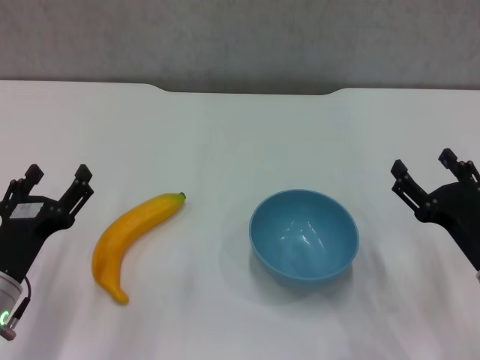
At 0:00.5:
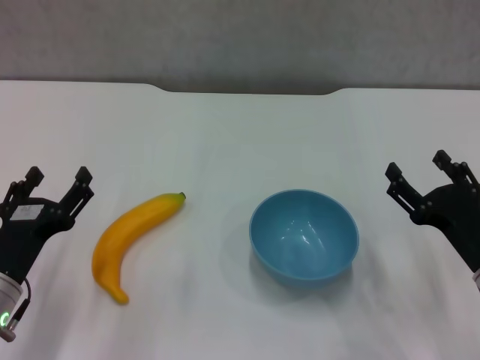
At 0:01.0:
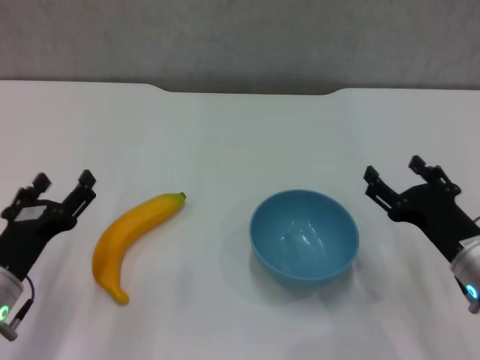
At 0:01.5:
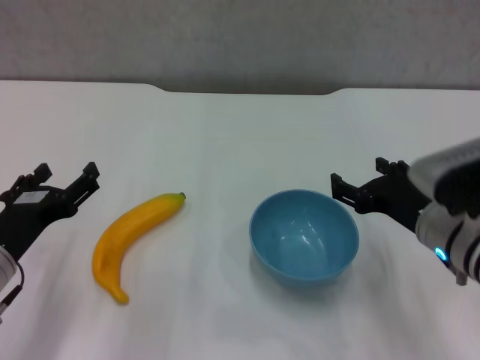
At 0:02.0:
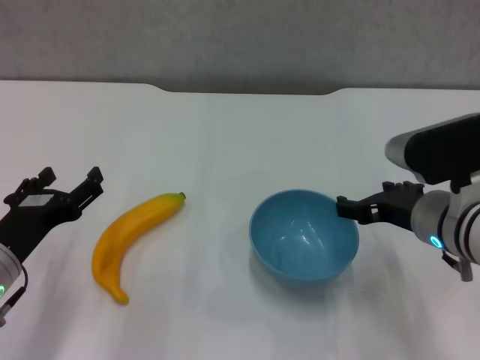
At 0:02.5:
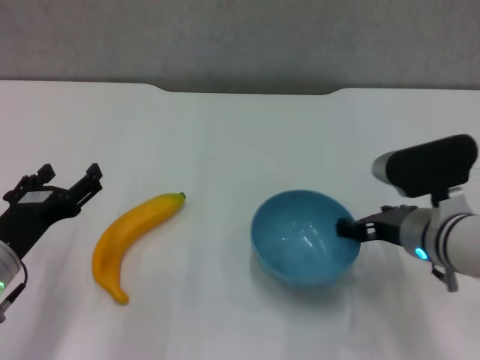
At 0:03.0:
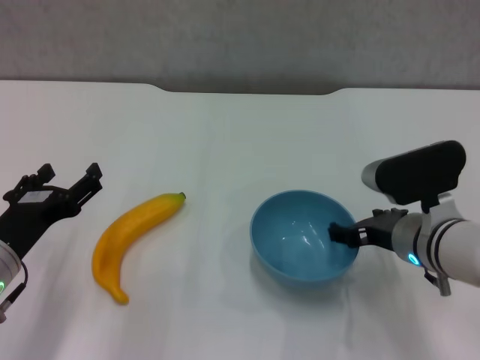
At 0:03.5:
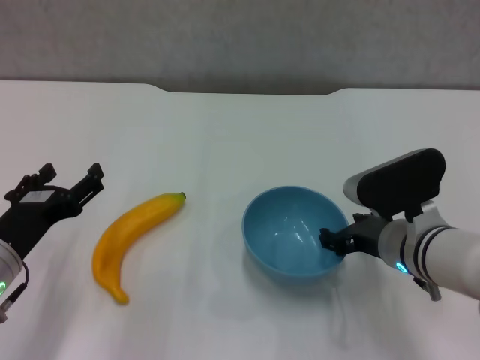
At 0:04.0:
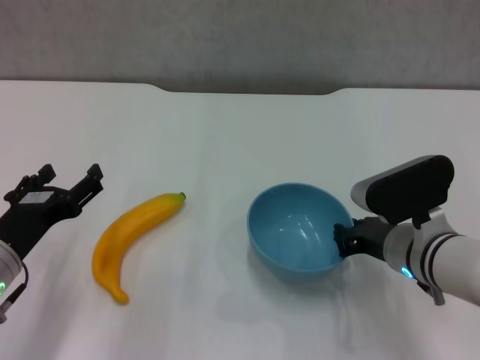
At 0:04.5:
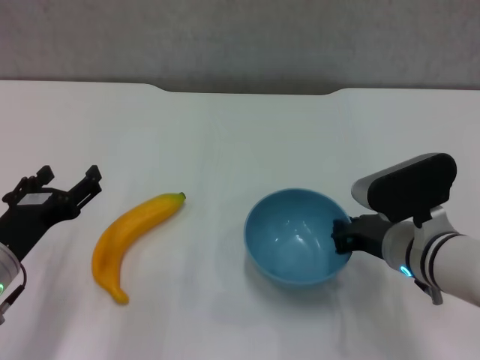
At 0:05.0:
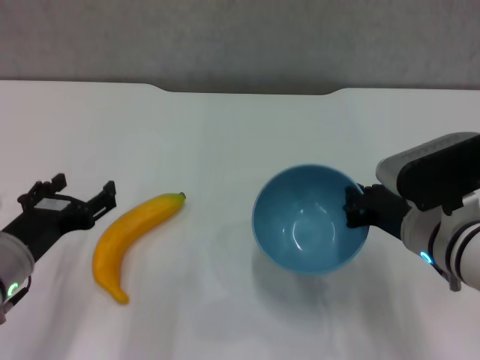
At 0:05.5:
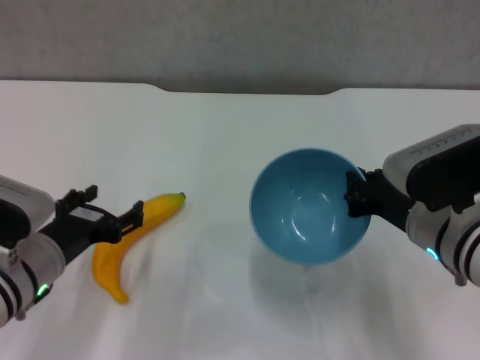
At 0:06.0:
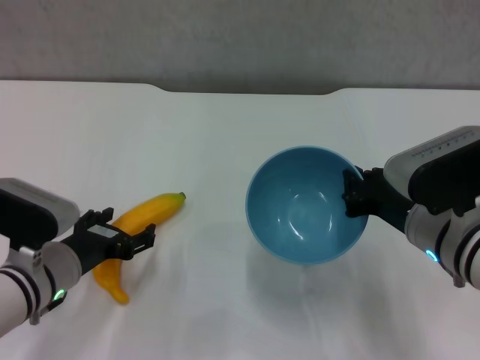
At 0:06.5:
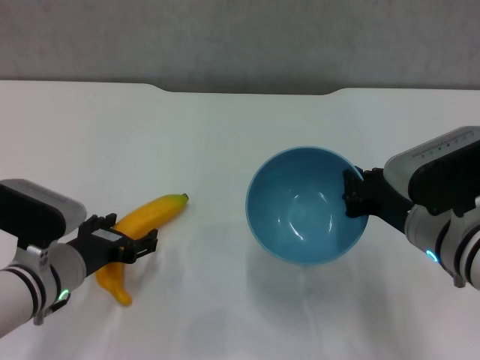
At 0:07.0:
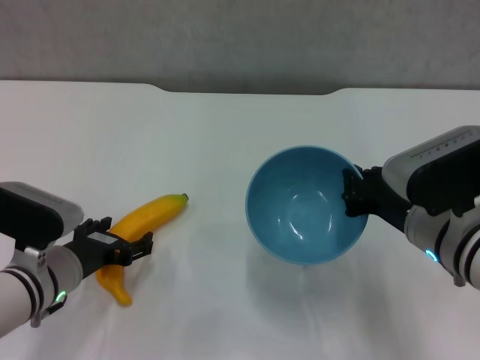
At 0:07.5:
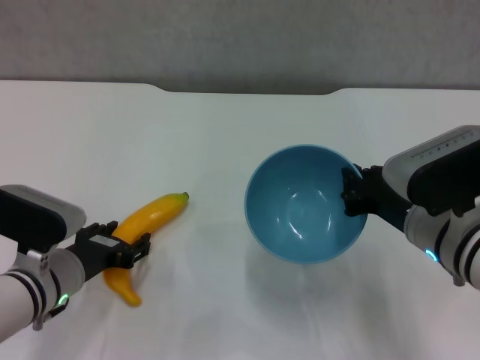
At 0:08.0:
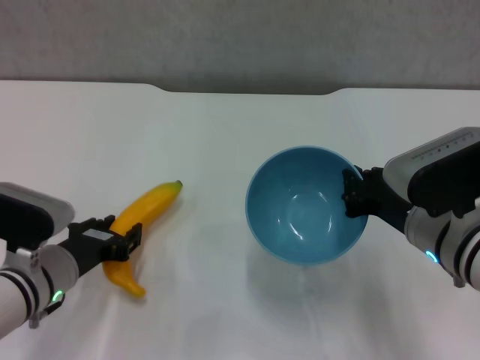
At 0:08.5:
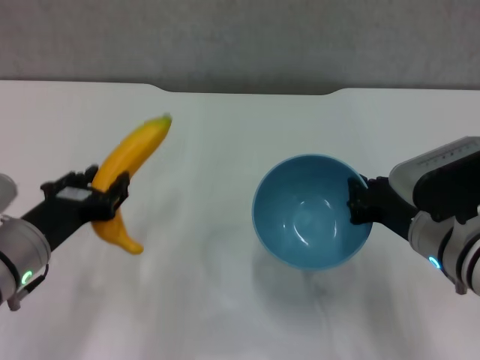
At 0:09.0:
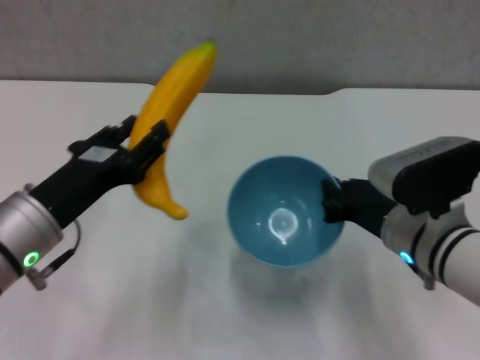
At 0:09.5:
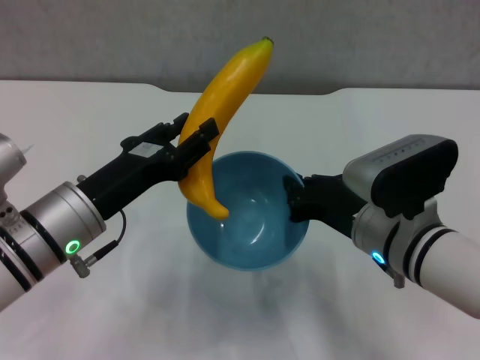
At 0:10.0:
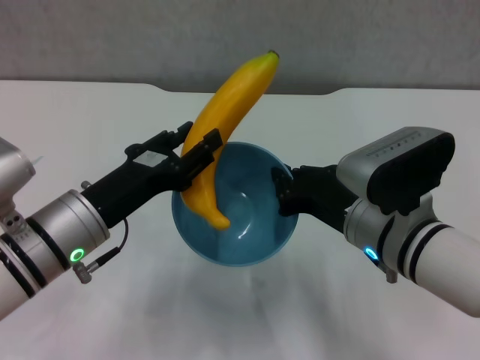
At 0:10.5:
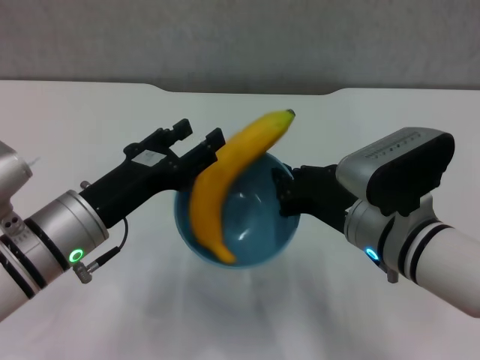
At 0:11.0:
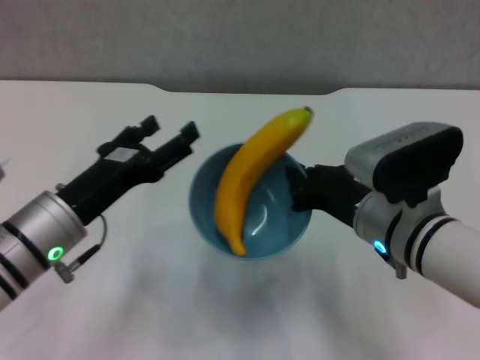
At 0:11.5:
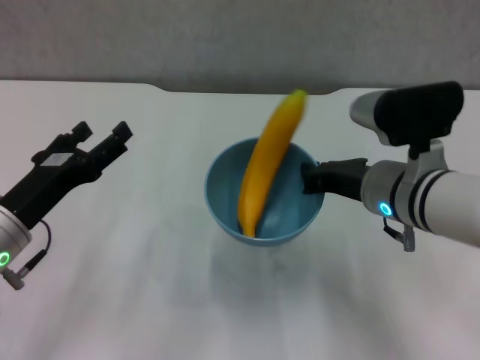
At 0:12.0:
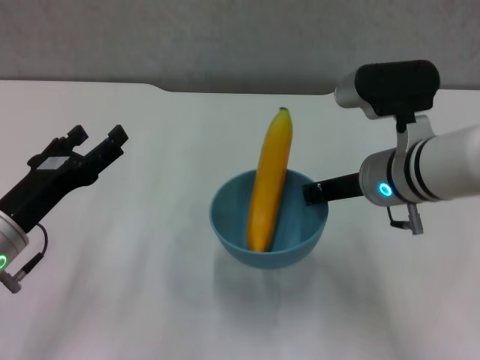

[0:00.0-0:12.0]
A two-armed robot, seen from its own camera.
Step, 0:00.0 to 0:04.0: Grasp the blue bowl with right gripper.
Step, 0:04.5 to 0:05.0: Lift the blue bowl with right gripper.
Step, 0:05.5 to 0:07.5: Grasp the banana with left gripper.
Step, 0:08.0 to 0:10.5: Place the banana in the blue bowl with left gripper.
0:00.0 to 0:02.0: The right gripper is displaced upward, to the left and forward by roughly 10 cm.
0:02.0 to 0:04.0: The right gripper travels downward by approximately 5 cm, and closes its fingers.
0:04.0 to 0:06.0: The left gripper moves some 5 cm; the right gripper is displaced upward by approximately 5 cm, and closes.
0:06.0 to 0:08.0: The left gripper closes its fingers.
0:08.0 to 0:10.0: The left gripper goes roughly 10 cm upward.
0:10.0 to 0:12.0: The right gripper travels forward by about 5 cm, while the left gripper heads to the left, covering some 5 cm, and opens.

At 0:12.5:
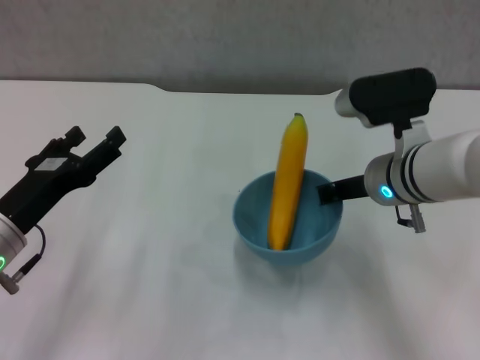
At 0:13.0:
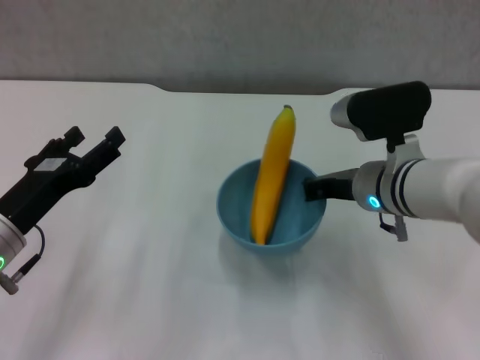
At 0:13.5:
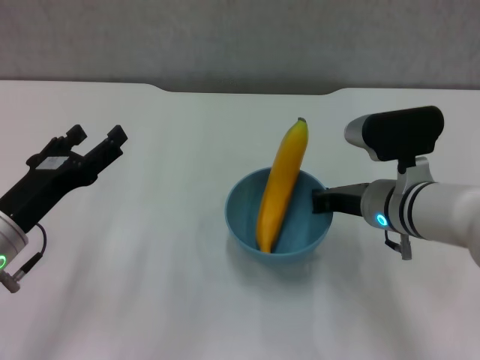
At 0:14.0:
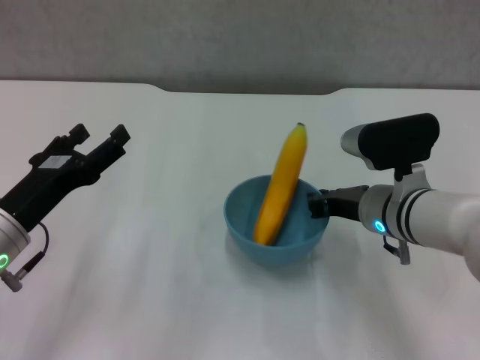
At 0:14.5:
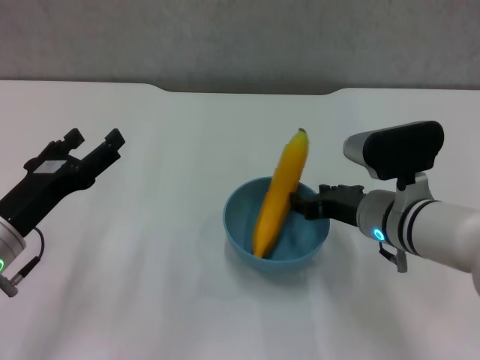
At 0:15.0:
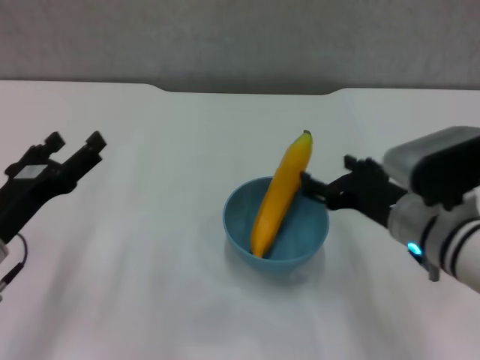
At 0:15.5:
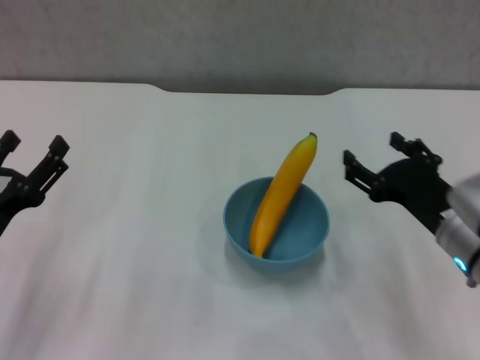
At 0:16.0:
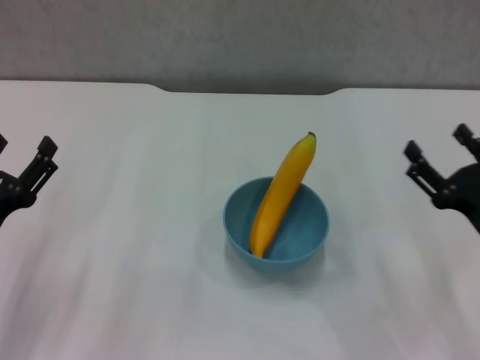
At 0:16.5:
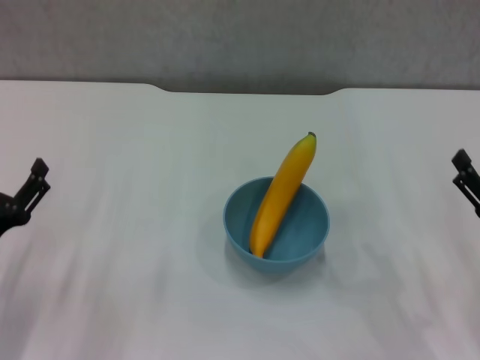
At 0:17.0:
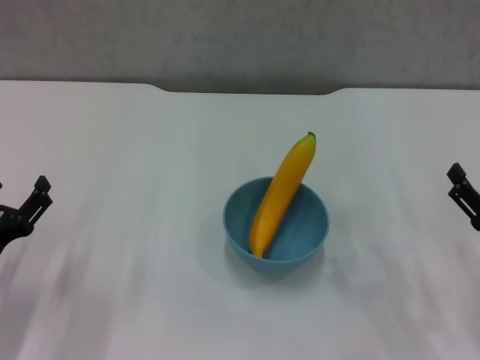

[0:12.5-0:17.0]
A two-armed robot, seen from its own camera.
Step, 0:12.5 to 0:14.5: Place the bowl on the table with right gripper.
0:12.5 to 0:14.5: The right gripper moves roughly 5 cm, and opens.
0:14.5 to 0:17.0: The right gripper goes roughly 20 cm to the right and backward, and opens. The left gripper heads downward, covering some 5 cm.
